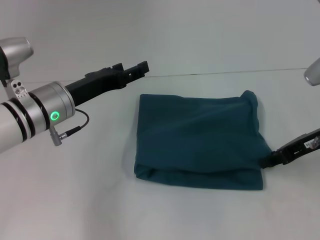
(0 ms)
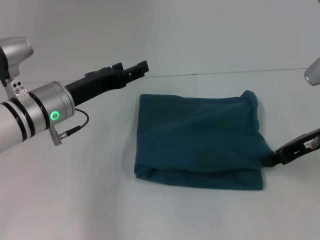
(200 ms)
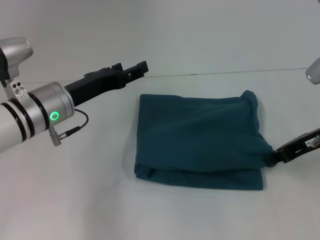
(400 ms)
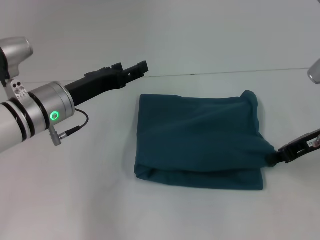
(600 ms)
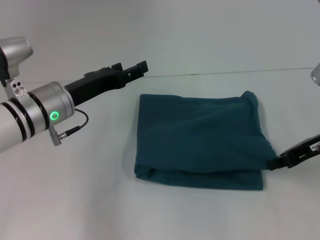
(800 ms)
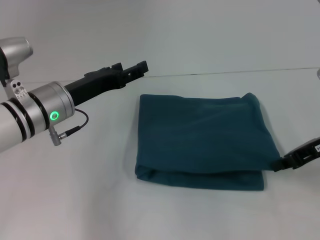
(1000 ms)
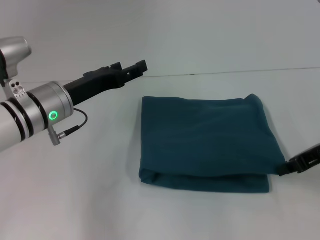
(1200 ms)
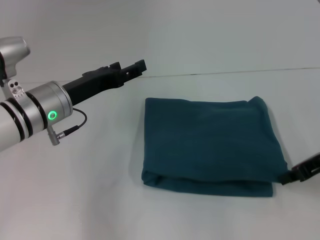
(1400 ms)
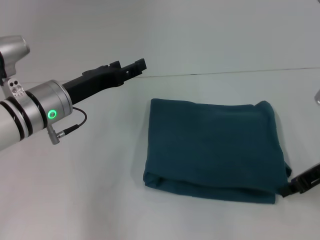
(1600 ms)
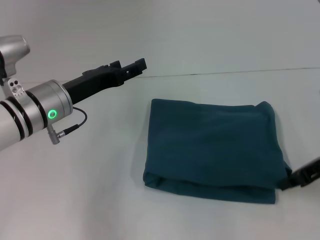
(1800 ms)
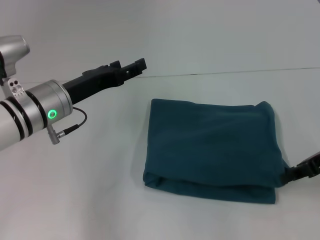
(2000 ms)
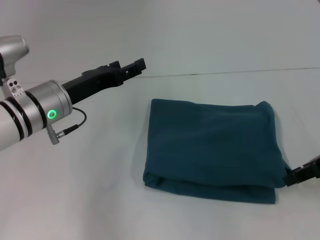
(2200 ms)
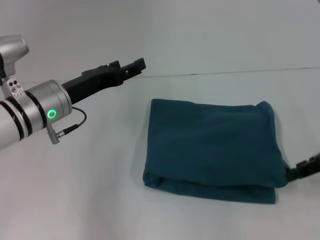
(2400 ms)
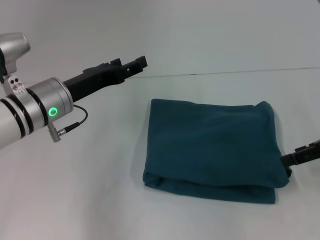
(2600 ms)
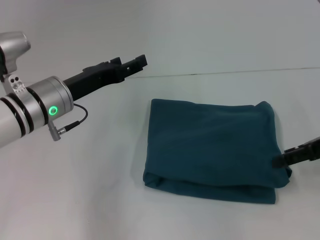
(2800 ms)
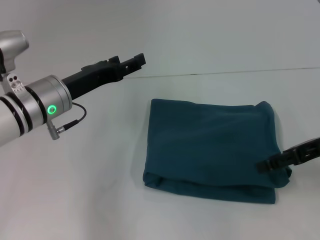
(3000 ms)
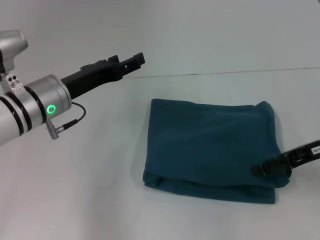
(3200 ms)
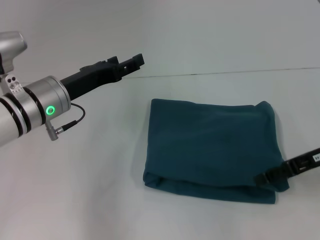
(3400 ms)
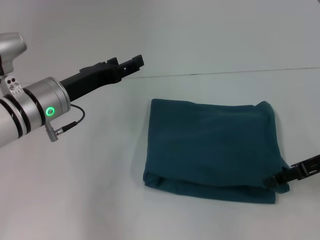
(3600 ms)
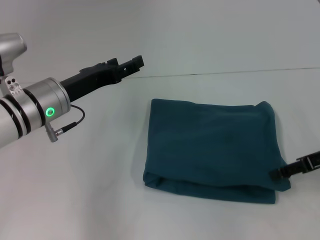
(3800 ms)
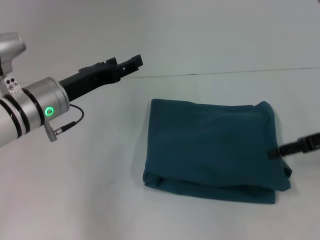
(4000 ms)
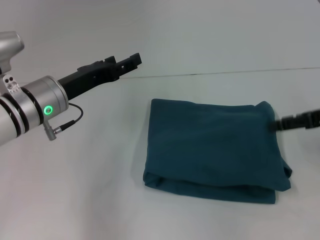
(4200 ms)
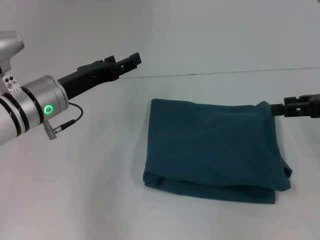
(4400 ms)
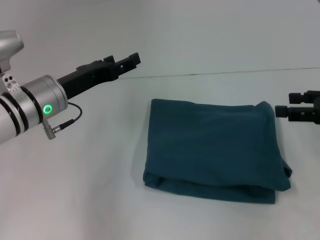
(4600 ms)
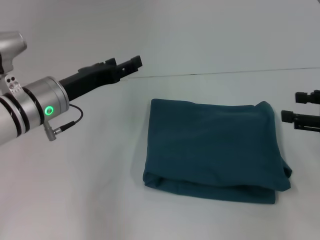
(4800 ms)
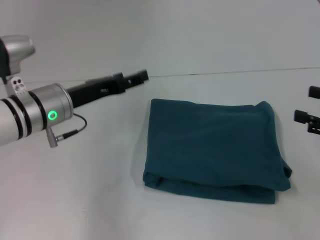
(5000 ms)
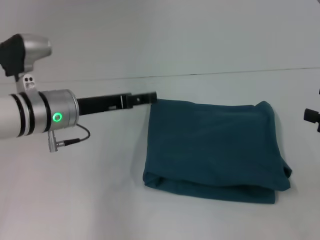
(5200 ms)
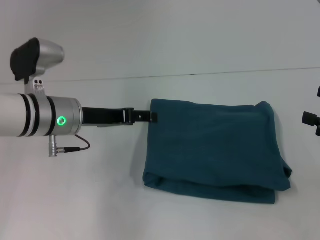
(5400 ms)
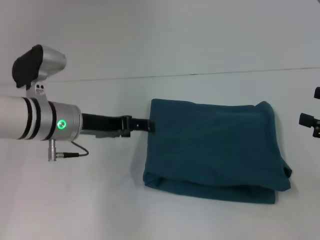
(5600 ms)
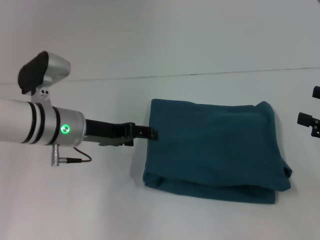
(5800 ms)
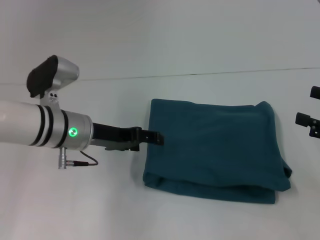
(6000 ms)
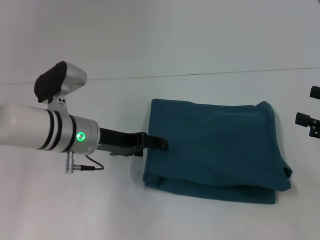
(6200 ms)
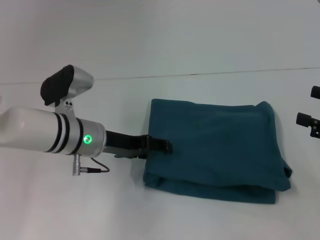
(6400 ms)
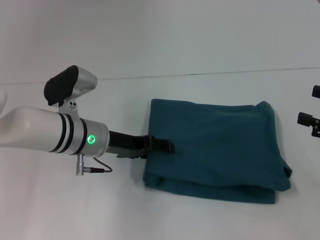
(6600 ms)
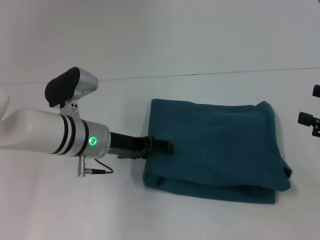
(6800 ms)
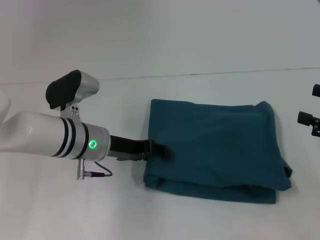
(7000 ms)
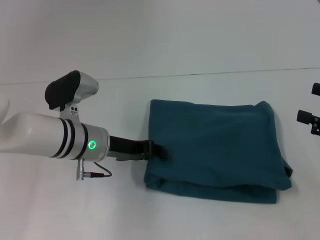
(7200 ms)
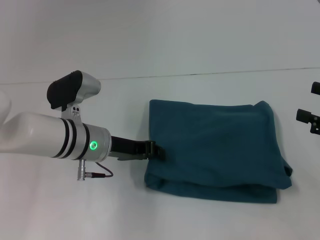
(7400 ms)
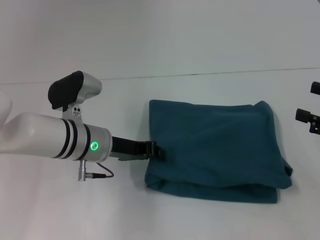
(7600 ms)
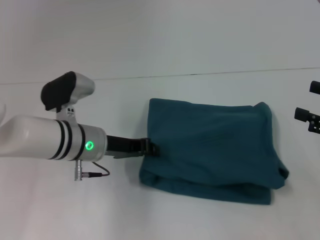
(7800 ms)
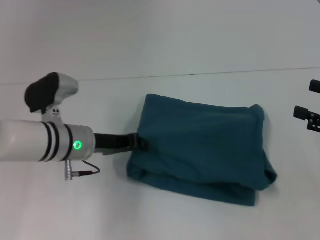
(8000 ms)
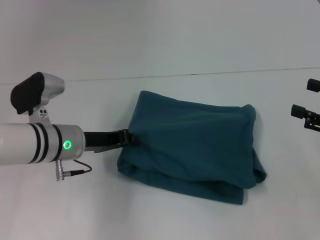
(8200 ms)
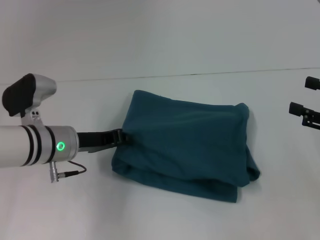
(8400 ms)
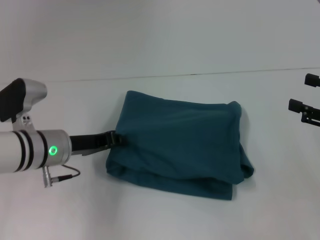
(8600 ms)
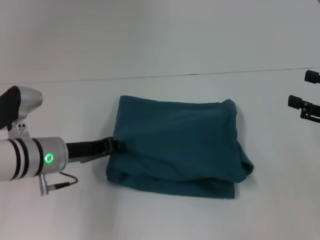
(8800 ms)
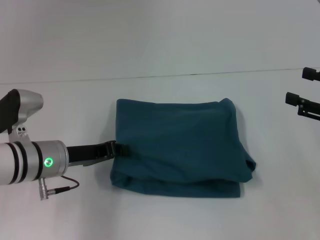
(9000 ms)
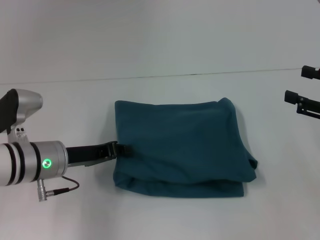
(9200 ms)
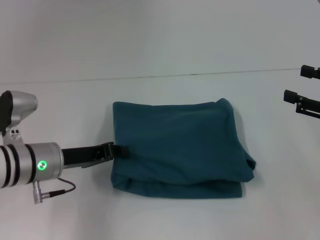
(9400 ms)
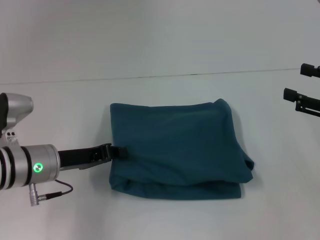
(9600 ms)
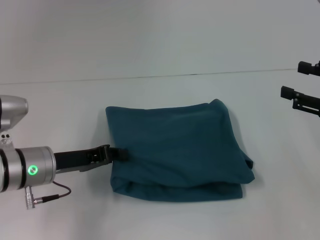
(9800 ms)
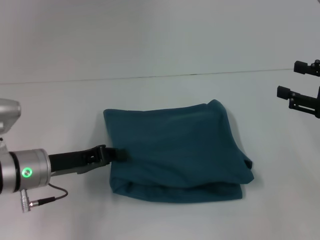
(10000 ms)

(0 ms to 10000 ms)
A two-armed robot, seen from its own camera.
0 ms - 1400 ms: The grippers move only a little.
1400 ms - 2800 ms: The right gripper opens.
2800 ms - 4200 ms: The grippers move only a little.
4200 ms - 5800 ms: The right gripper moves backward, approximately 10 cm.
5800 ms - 7200 ms: There are only small adjustments of the grippers.
7200 ms - 8600 ms: The left gripper goes about 5 cm to the left, and closes.
8600 ms - 10000 ms: The grippers make only small movements.

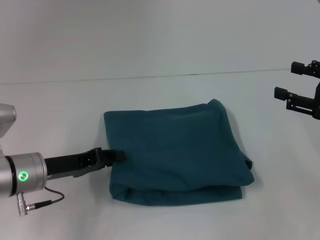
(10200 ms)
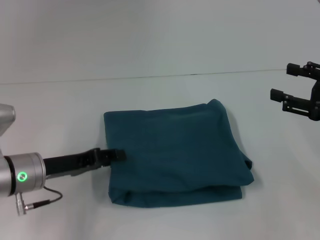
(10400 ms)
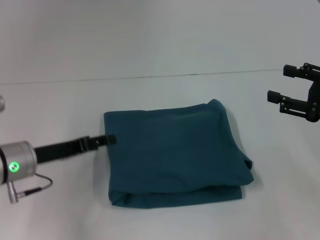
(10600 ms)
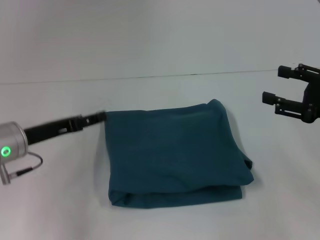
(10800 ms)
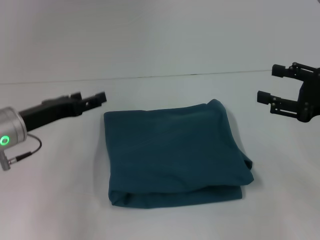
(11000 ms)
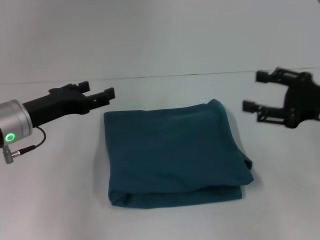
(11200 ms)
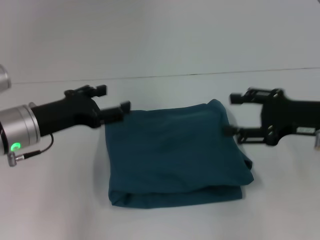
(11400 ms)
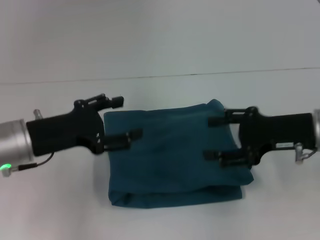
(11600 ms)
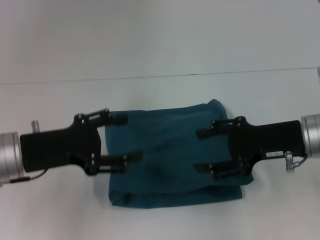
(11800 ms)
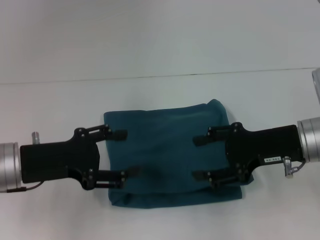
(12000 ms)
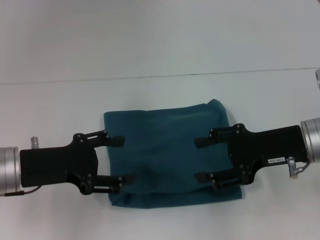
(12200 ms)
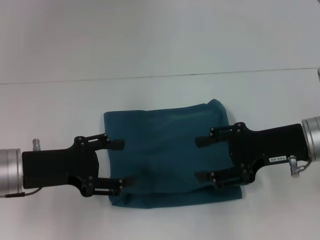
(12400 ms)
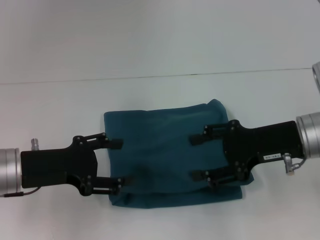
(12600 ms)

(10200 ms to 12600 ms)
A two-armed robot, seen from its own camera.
10200 ms - 11400 ms: The left gripper ends up roughly 5 cm from where it was, and opens, while the right gripper moves to the left, about 5 cm.
11400 ms - 12600 ms: The right gripper is displaced to the left by roughly 5 cm.
